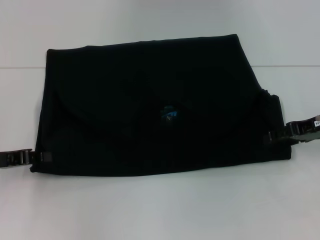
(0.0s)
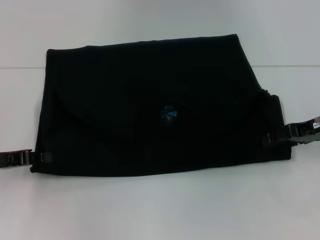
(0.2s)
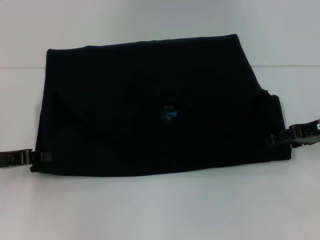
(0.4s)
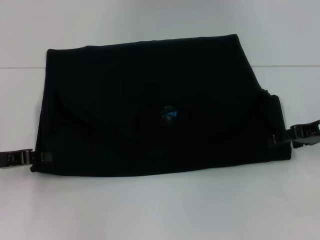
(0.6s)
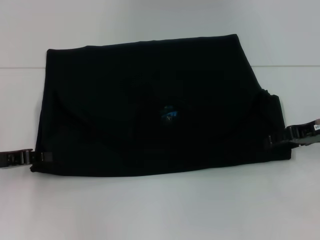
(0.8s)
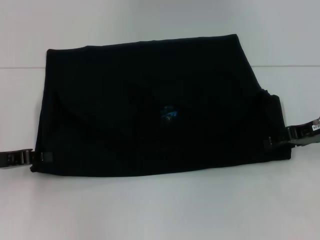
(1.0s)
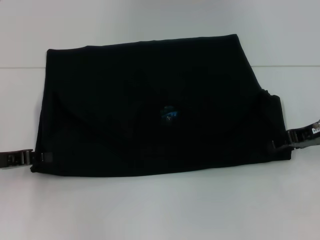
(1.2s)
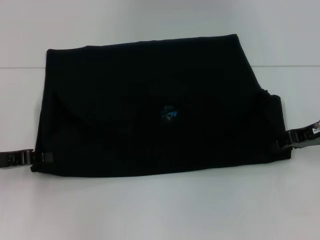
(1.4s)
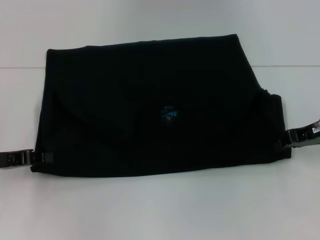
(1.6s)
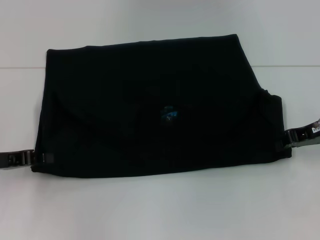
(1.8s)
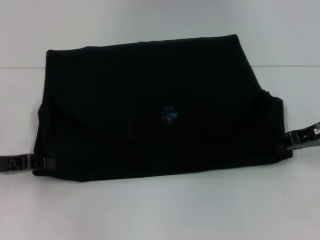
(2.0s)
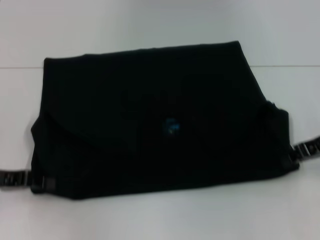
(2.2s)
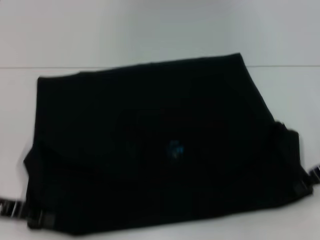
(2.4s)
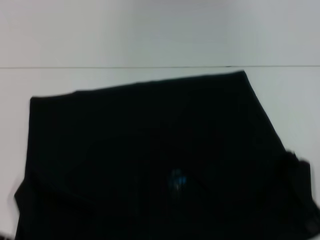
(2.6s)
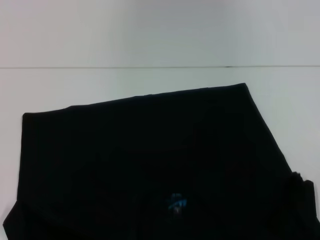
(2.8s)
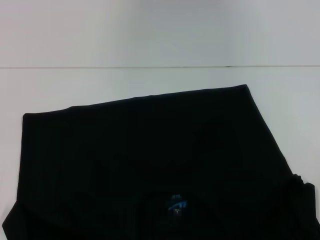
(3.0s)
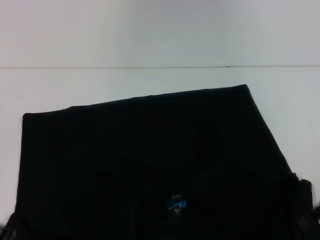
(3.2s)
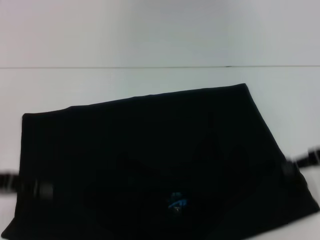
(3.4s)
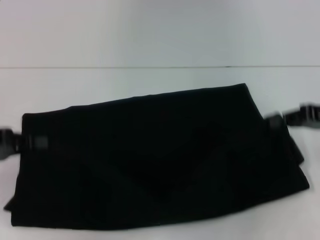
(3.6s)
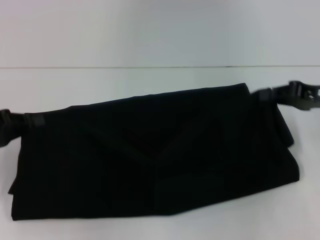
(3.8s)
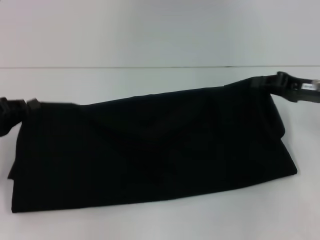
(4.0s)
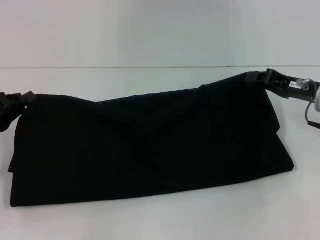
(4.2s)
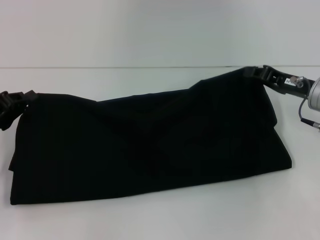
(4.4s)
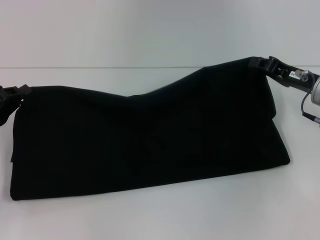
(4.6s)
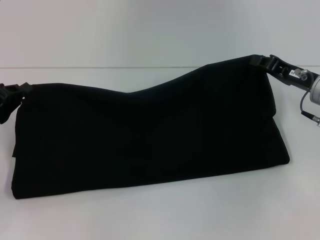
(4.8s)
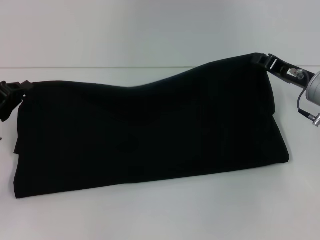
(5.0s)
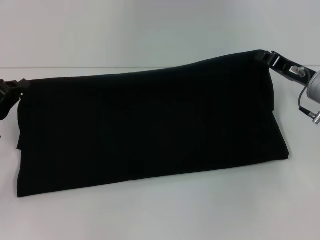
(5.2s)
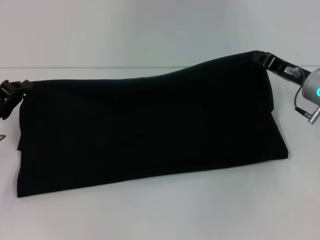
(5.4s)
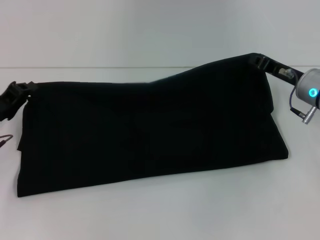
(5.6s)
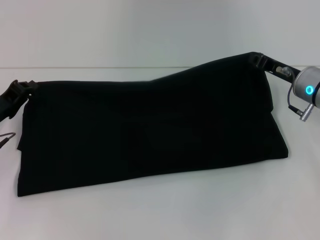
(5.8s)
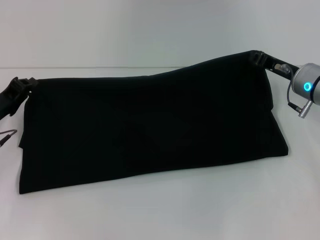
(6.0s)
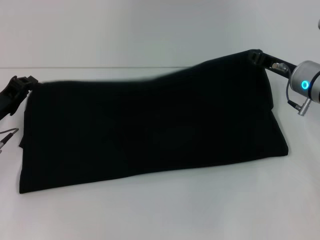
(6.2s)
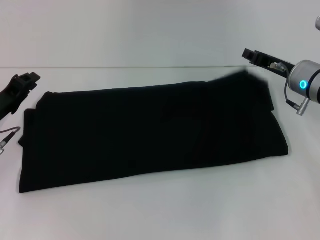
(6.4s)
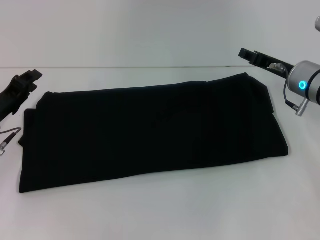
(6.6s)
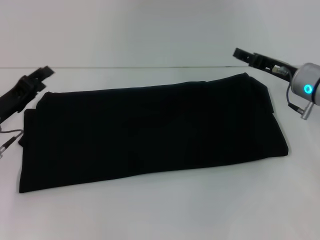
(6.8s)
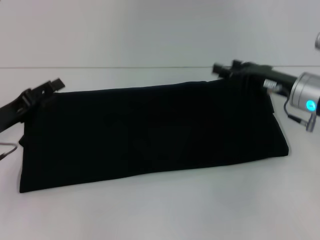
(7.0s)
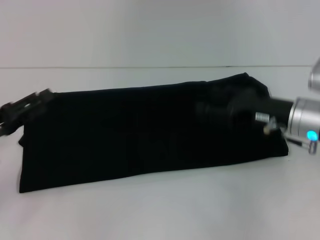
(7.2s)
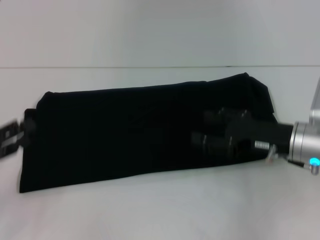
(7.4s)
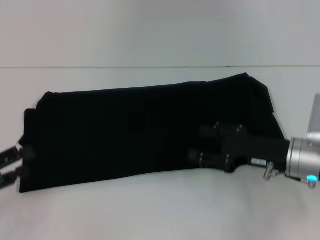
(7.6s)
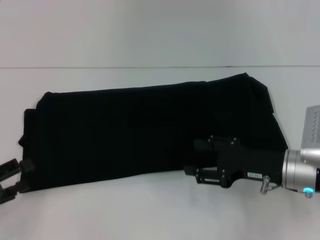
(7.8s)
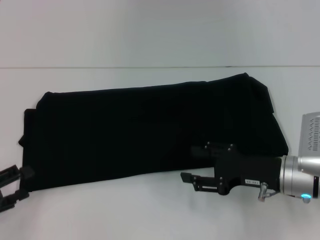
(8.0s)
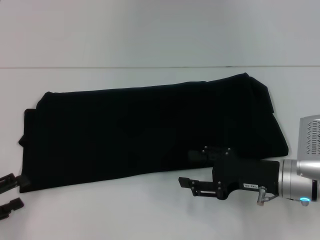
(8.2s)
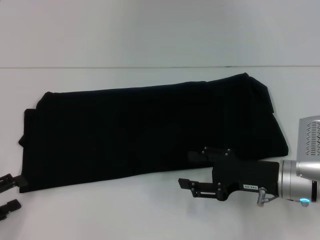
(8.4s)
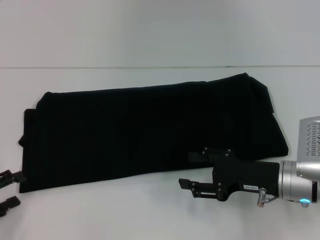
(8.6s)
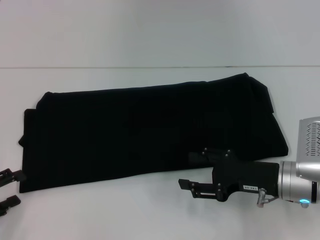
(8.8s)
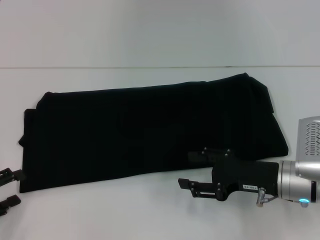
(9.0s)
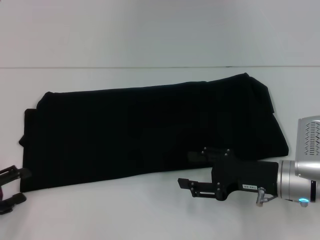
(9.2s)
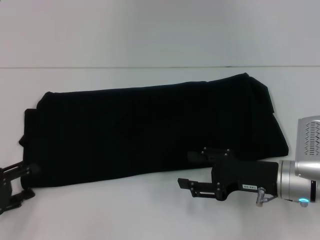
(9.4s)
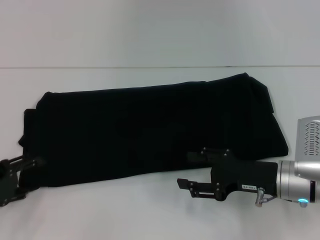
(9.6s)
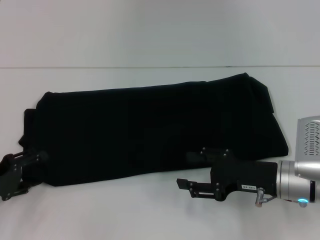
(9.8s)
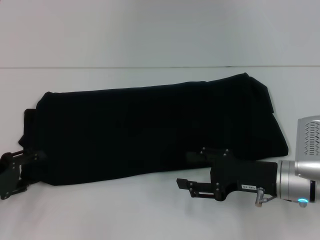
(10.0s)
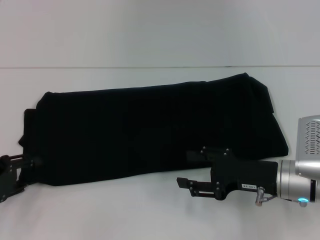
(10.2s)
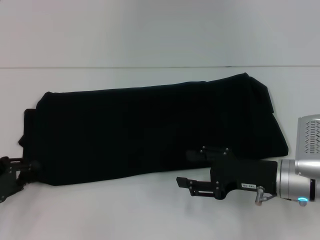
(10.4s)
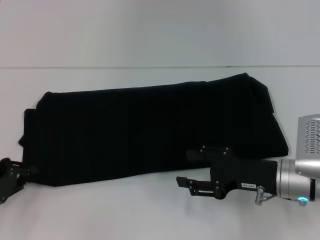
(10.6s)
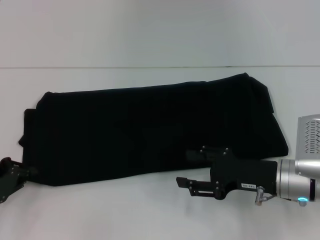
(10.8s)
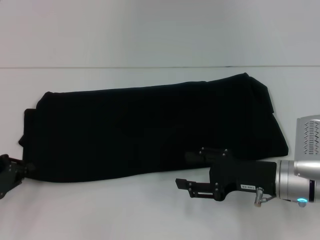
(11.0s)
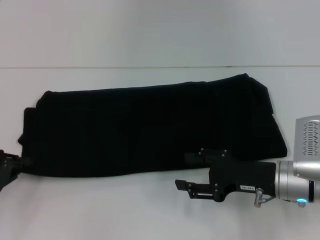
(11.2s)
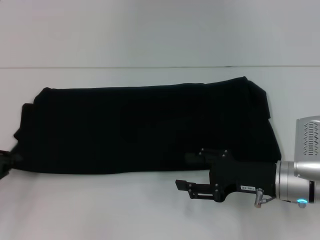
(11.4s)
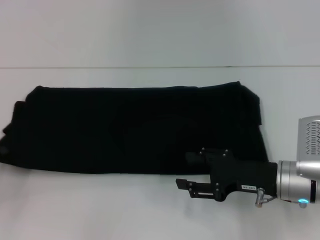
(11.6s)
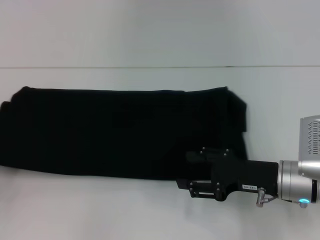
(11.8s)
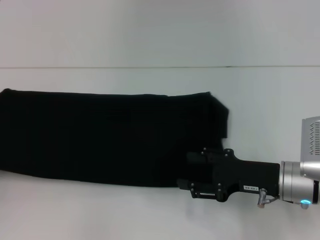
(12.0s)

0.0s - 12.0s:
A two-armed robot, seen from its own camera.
Step, 0.0s - 2.6s: Pull the clothes with your left hand.
Step, 0.0s - 2.6s: Pull the clothes with your right hand.
Step, 2.8s - 6.4s: Fold the clothes with your right hand.
0.0s - 1.6s: The right gripper closes its fingers.
1.6s - 3.0s: The right gripper is displaced backward by approximately 10 cm; the left gripper shifts roughly 5 cm backward.
3.0s - 4.4s: The left gripper travels forward by about 5 cm. The right gripper heads forward, covering approximately 10 cm.
4.4s - 6.0s: The left gripper moves roughly 5 cm.
6.0s - 7.6s: The grippers both shift backward by roughly 10 cm. The right gripper opens its fingers, while the left gripper opens up.
9.0s - 10.4s: The left gripper changes place by some 5 cm.
10.4s - 12.0s: The left gripper is displaced to the left by some 10 cm, and closes its fingers.

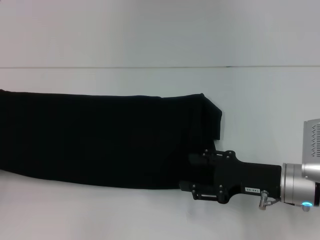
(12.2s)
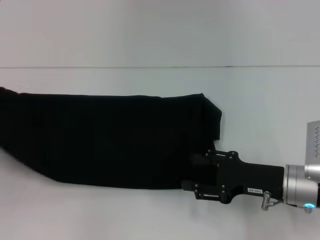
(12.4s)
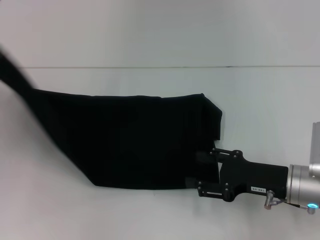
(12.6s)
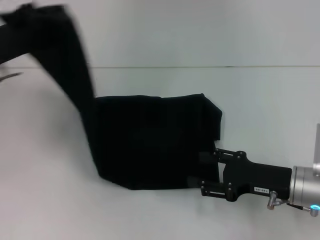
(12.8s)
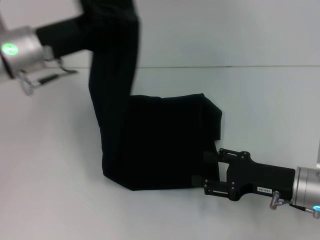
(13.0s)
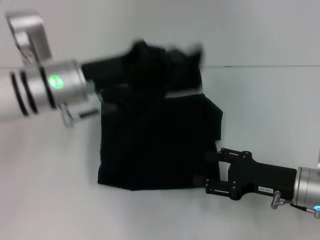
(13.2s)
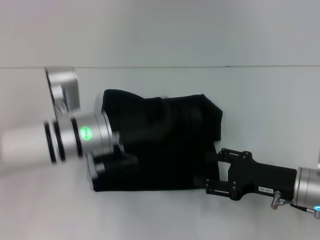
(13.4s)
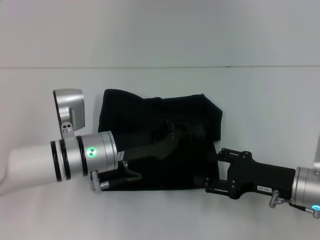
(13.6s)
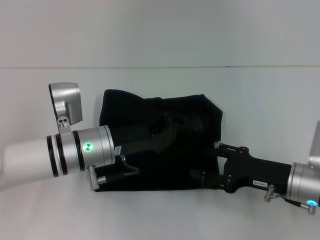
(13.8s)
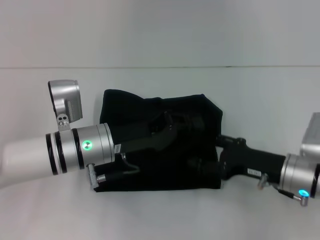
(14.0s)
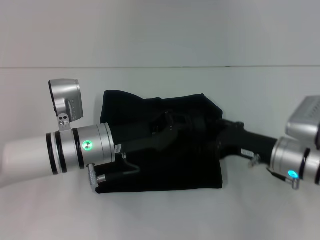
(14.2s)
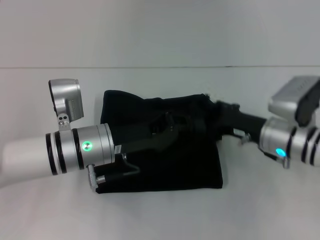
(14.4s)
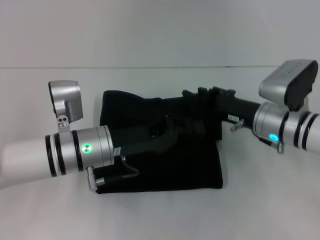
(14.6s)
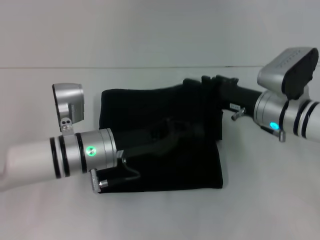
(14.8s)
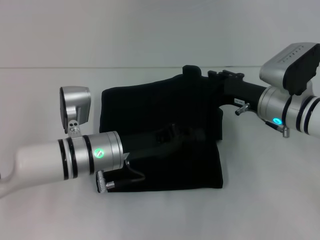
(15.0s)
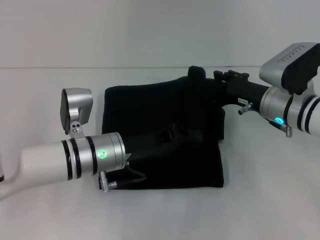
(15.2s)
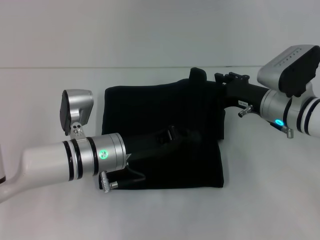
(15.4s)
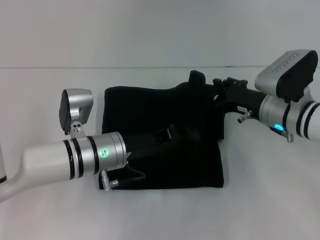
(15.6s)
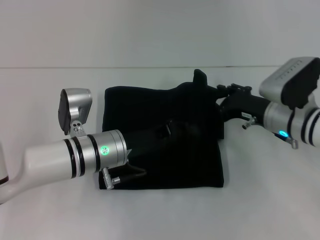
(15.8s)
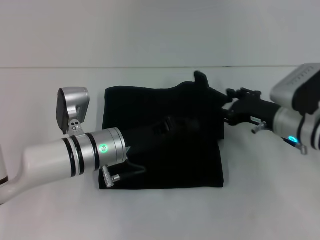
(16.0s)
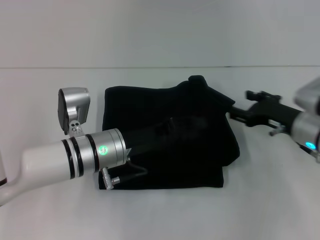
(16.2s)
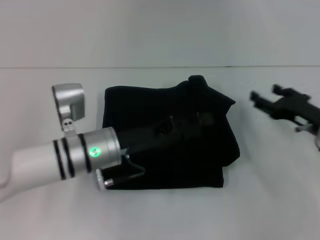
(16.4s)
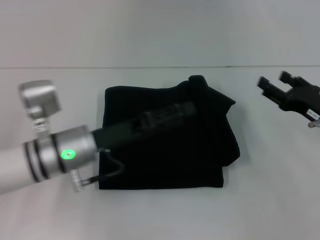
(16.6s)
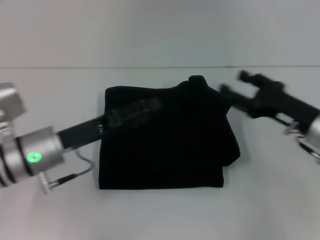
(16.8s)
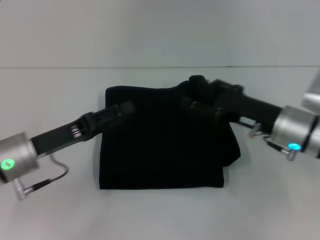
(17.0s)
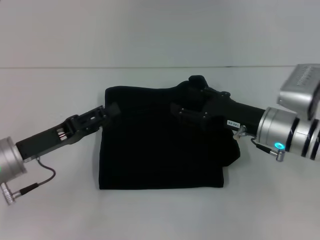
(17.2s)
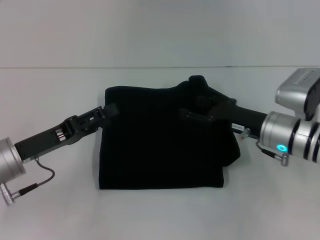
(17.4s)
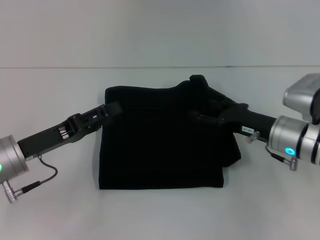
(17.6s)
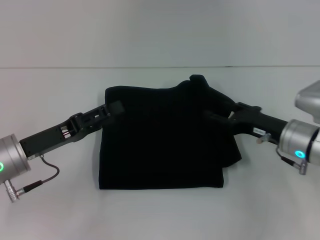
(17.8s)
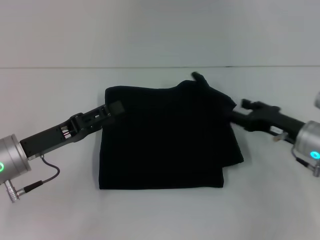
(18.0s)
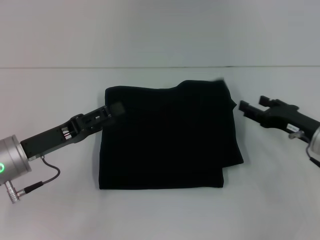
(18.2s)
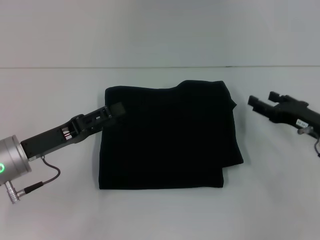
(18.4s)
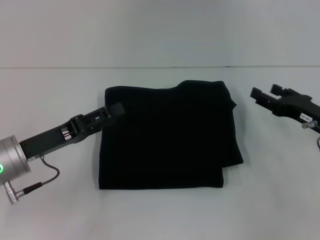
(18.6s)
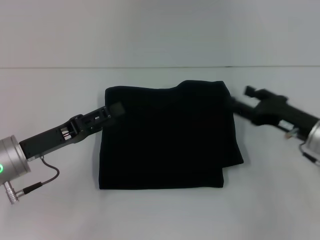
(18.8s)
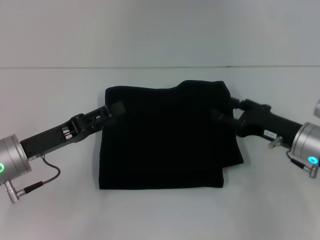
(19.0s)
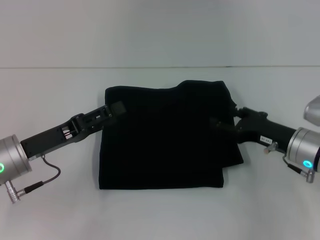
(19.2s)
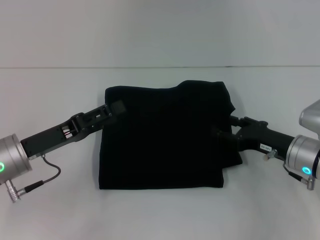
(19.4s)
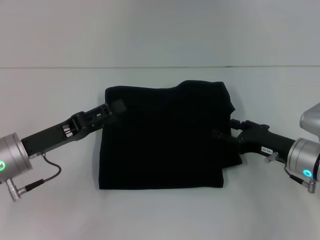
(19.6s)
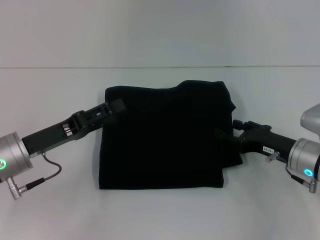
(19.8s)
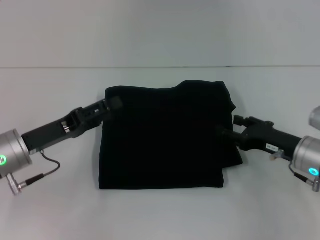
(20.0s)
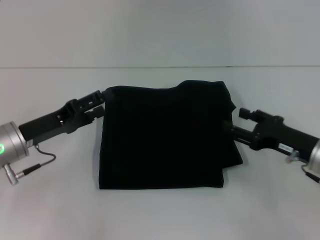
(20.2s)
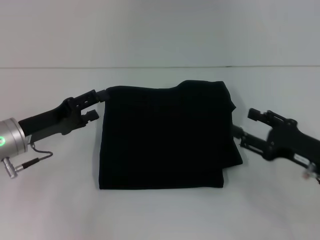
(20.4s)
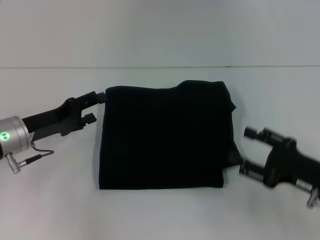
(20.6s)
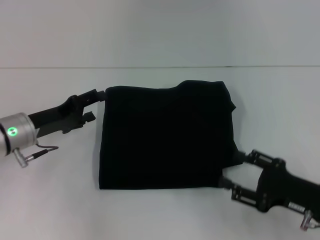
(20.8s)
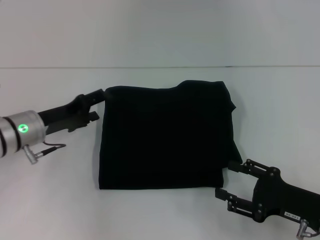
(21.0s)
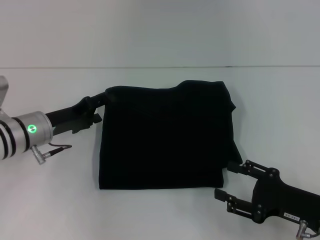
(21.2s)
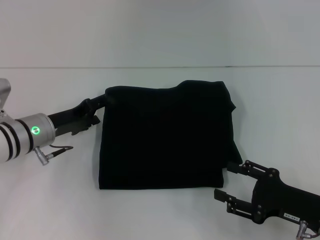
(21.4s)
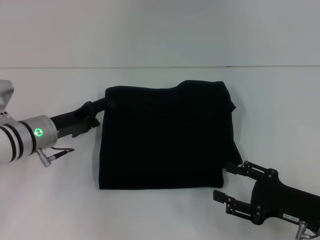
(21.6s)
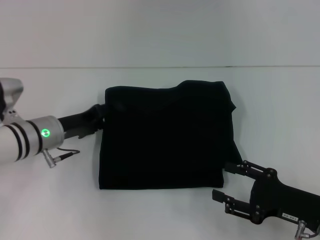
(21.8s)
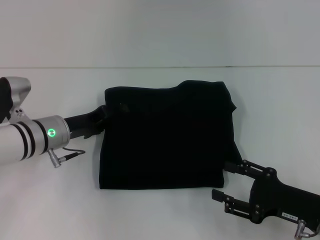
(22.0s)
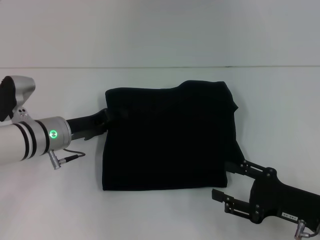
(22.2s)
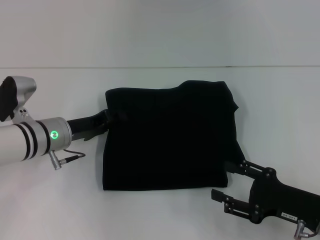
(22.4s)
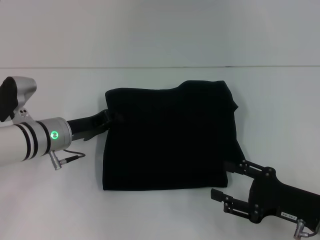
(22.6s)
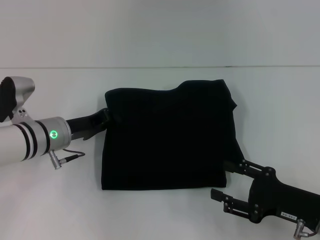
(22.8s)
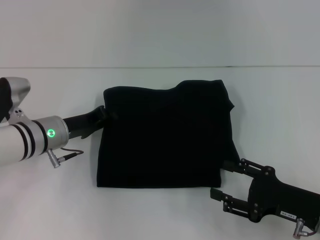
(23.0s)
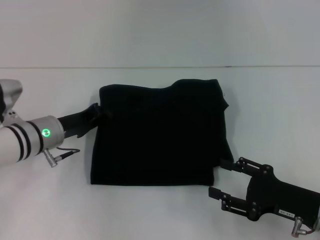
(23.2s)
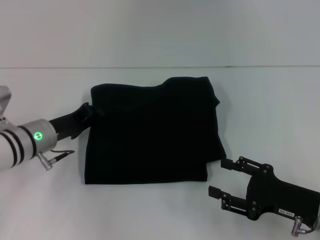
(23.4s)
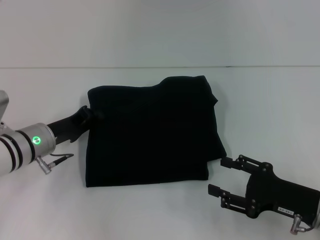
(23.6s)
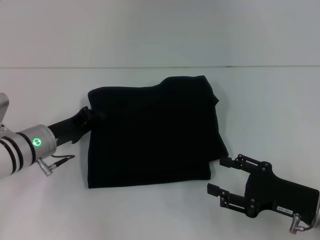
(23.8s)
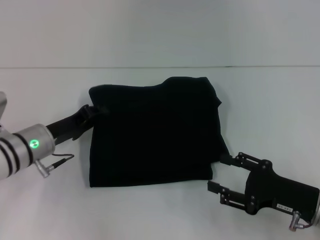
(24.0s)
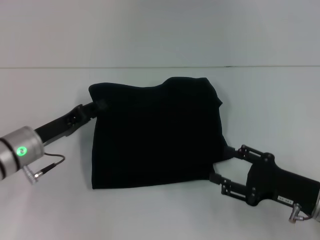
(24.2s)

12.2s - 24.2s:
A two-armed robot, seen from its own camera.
Step, 12.2s - 16.2s: Fold the clothes with your left hand.
12.2s - 13.8s: The left gripper travels to the right by roughly 30 cm.
13.8s - 15.2s: The right gripper shifts roughly 10 cm forward.
15.2s - 16.6s: The right gripper shifts roughly 10 cm to the right and backward. The left gripper opens its fingers.
16.6s - 18.2s: The left gripper shifts roughly 10 cm to the left; the right gripper goes to the left and returns, some 10 cm each way.
18.2s - 19.8s: The grippers move only a little.
19.8s - 21.2s: The right gripper moves backward, approximately 10 cm. The left gripper goes roughly 5 cm forward.
21.2s - 22.6s: The left gripper closes.
22.6s - 24.2s: The left gripper moves approximately 5 cm.
